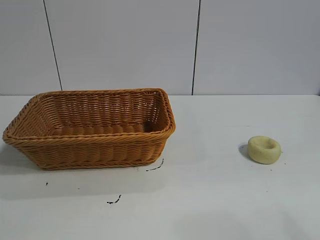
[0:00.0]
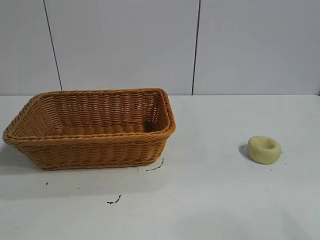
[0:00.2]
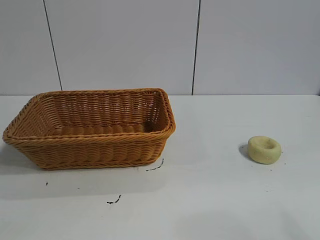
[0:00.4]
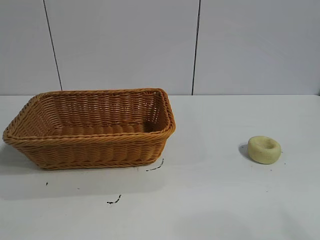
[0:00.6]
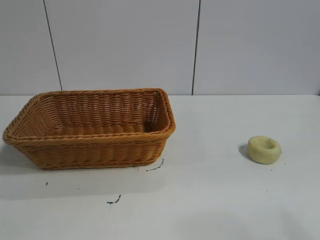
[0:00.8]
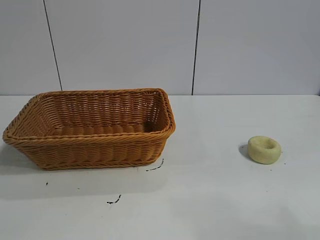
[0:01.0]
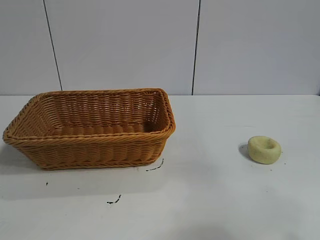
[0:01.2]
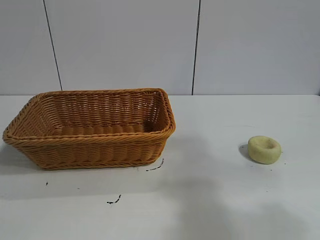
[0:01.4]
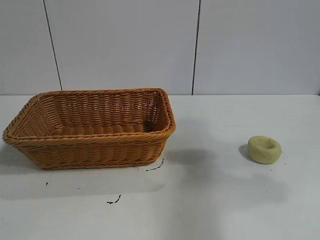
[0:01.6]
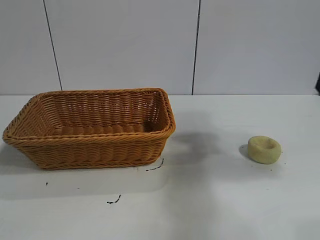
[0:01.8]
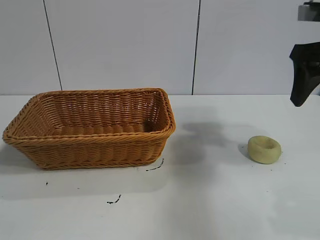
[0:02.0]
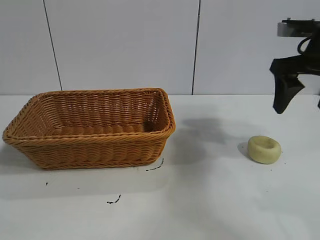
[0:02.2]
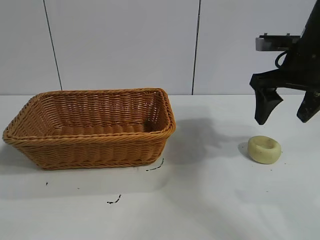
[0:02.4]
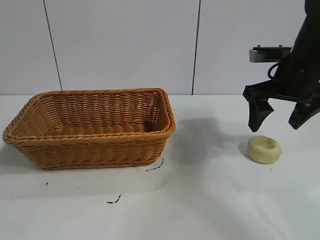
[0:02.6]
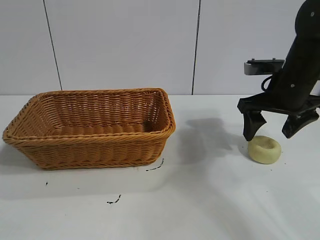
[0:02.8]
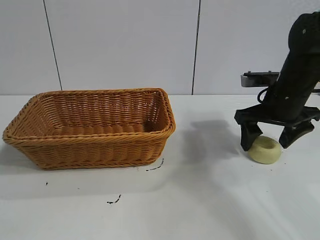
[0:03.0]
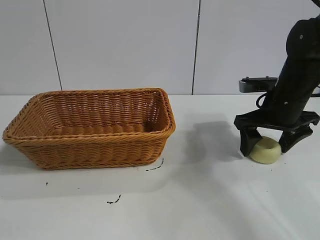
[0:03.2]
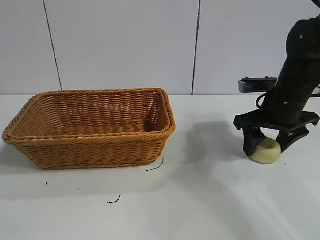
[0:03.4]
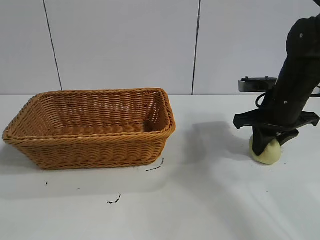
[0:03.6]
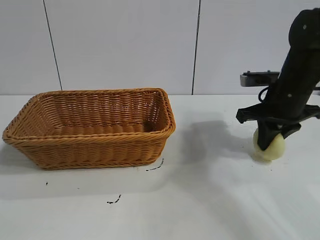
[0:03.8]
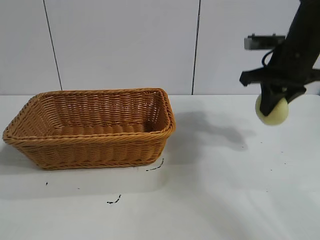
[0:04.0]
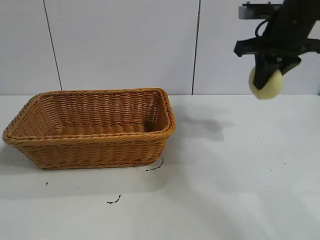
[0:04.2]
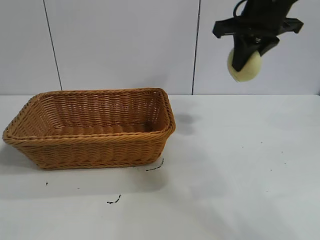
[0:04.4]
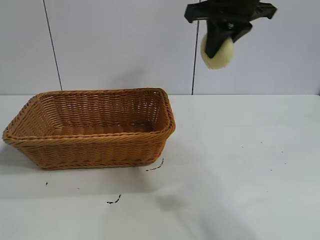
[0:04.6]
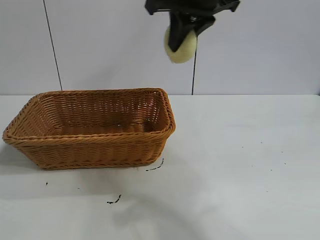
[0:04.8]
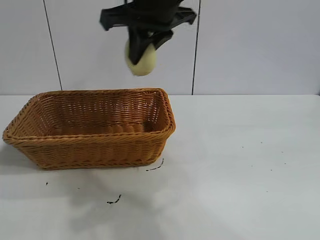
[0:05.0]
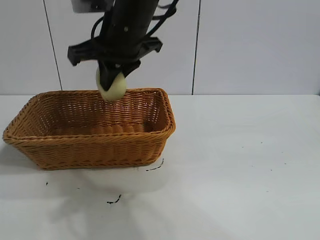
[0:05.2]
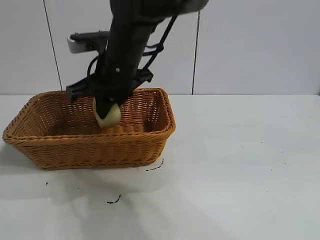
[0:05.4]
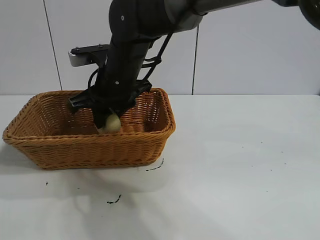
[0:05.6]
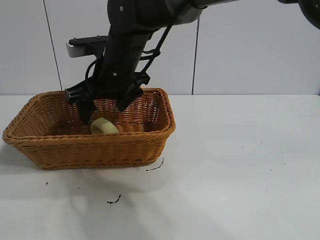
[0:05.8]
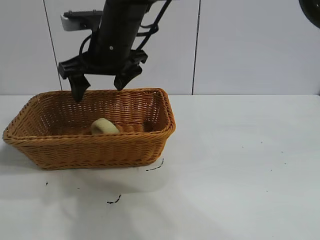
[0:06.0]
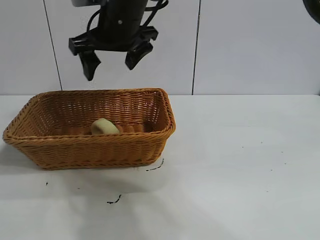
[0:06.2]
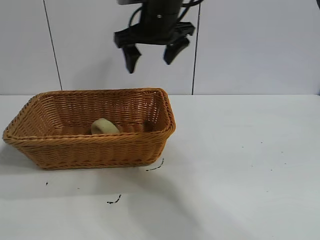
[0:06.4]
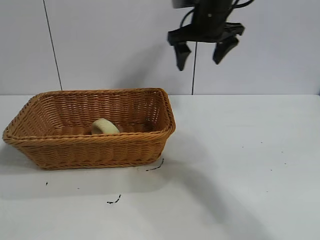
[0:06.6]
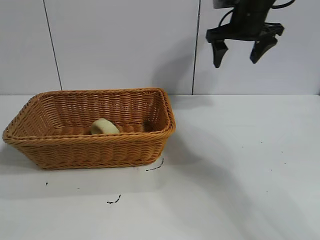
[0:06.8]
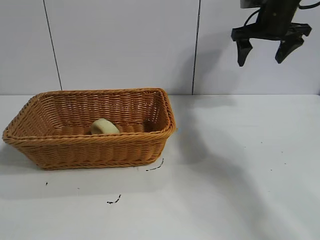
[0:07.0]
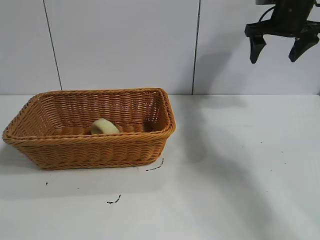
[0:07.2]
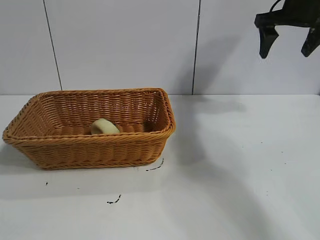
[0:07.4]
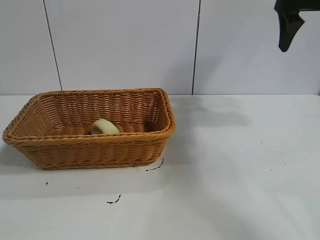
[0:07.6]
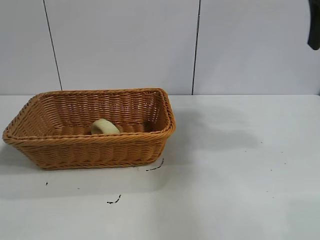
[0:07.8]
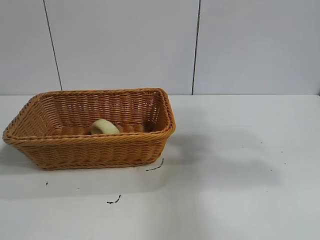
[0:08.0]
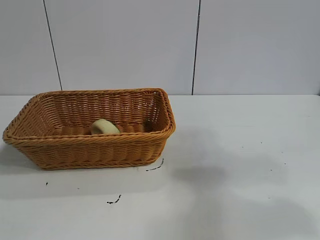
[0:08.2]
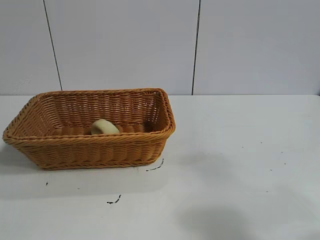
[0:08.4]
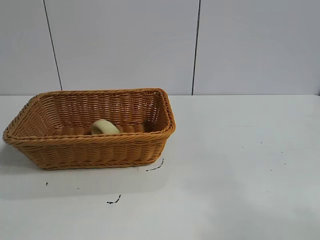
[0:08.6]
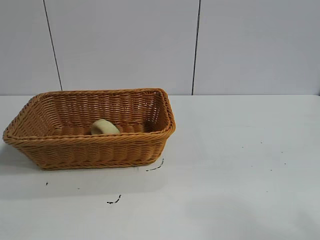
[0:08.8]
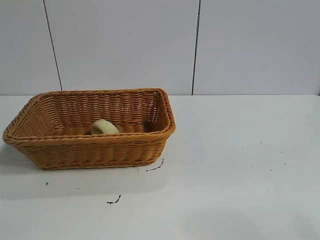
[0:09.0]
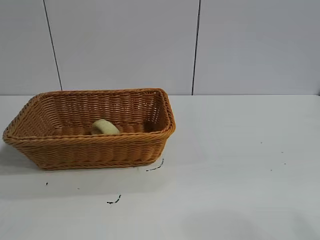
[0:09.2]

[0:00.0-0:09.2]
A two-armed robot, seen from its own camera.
Task of the whole recording: pick up the egg yolk pastry and put it into the basket.
Step, 0:00.8 to 0:03.6: Grasp egg yolk pastry with right gripper.
Step, 0:03.8 to 0:05.8: Place the egg yolk pastry in the basket with right gripper.
